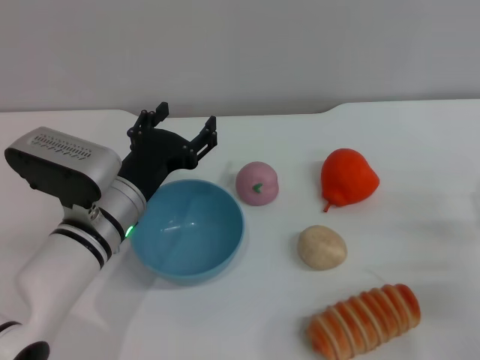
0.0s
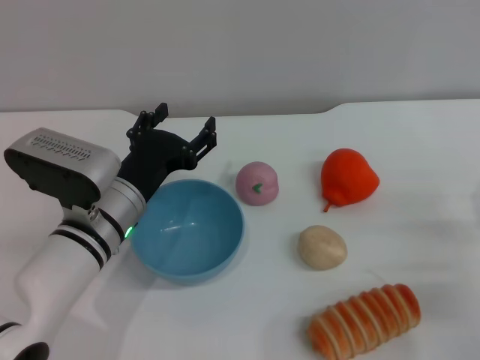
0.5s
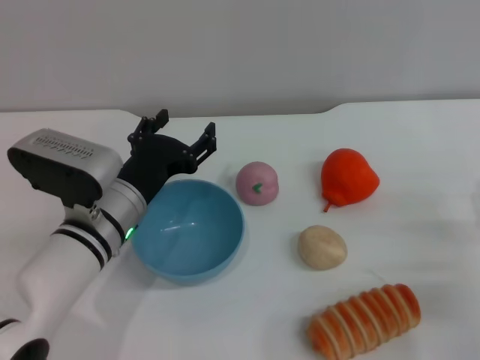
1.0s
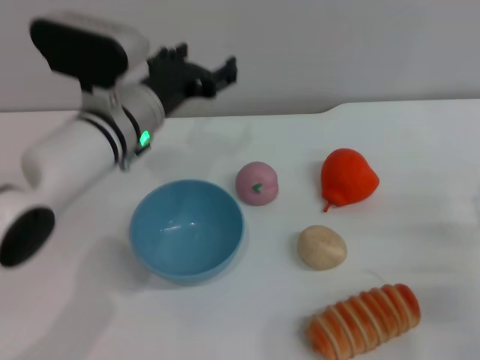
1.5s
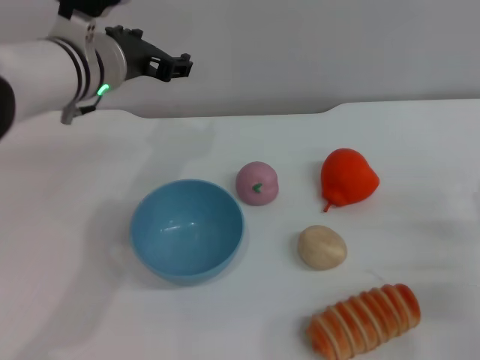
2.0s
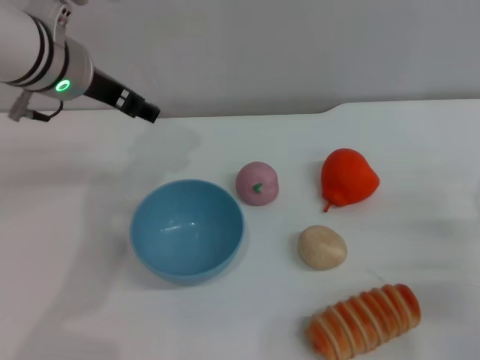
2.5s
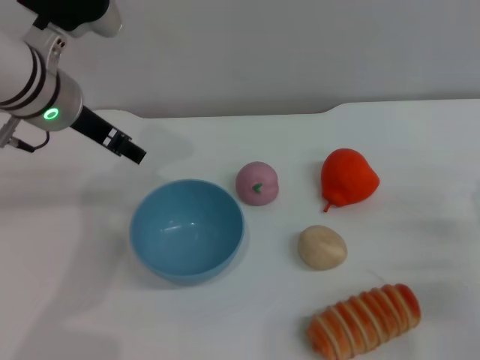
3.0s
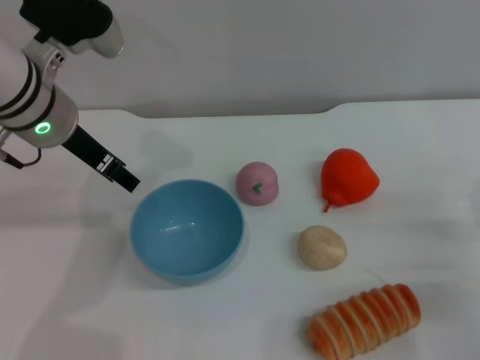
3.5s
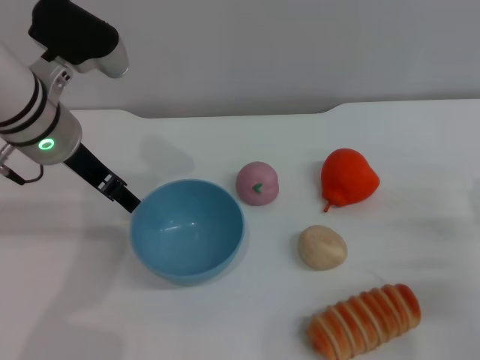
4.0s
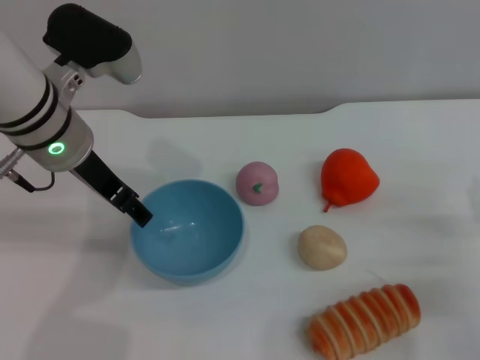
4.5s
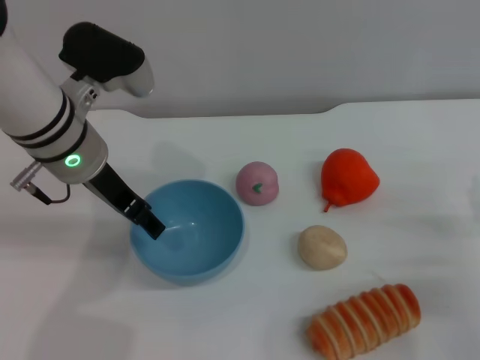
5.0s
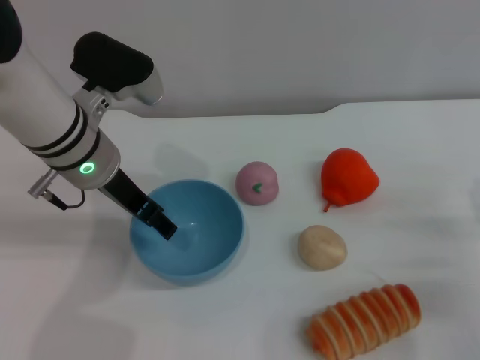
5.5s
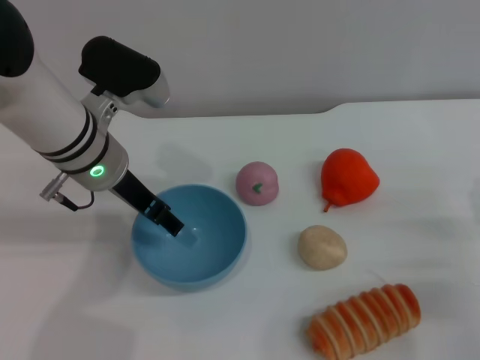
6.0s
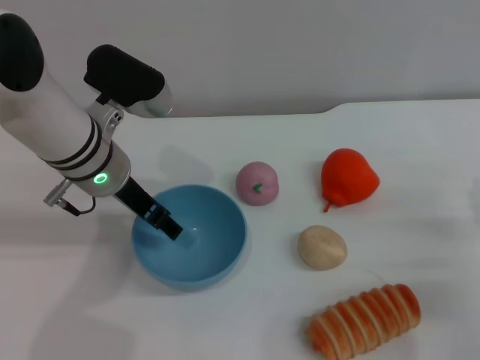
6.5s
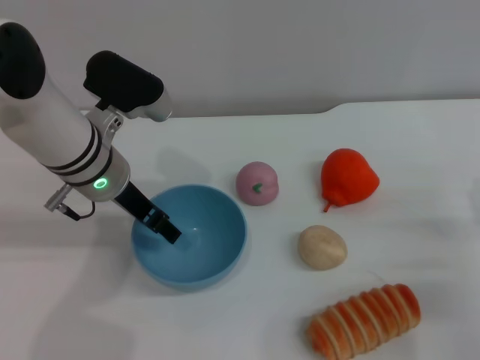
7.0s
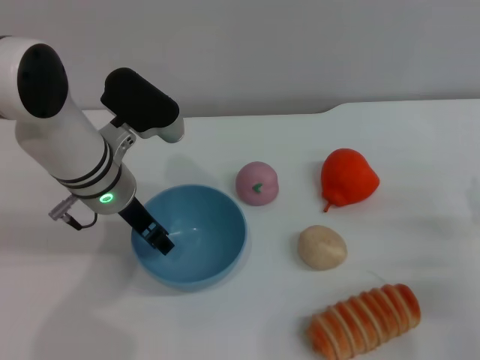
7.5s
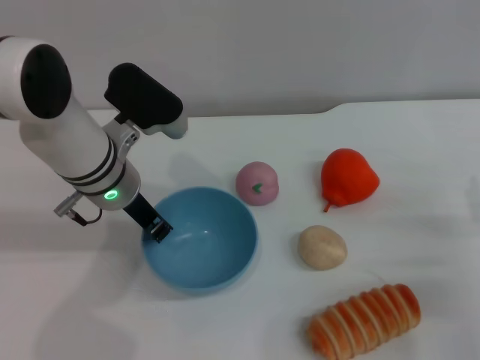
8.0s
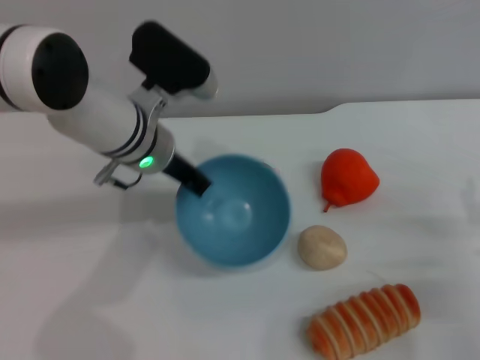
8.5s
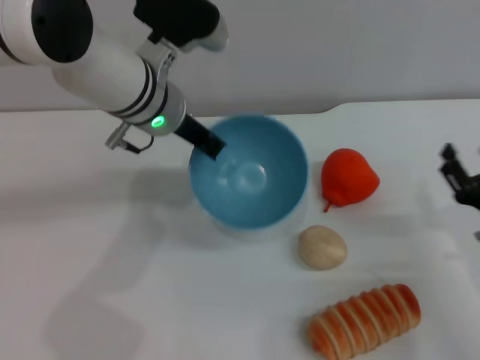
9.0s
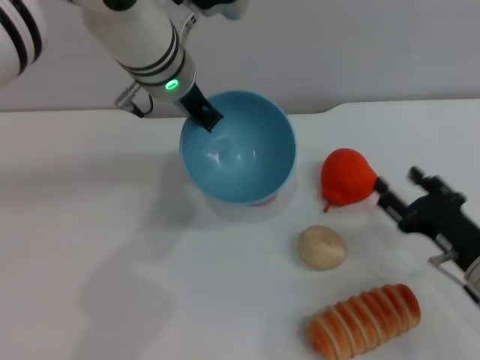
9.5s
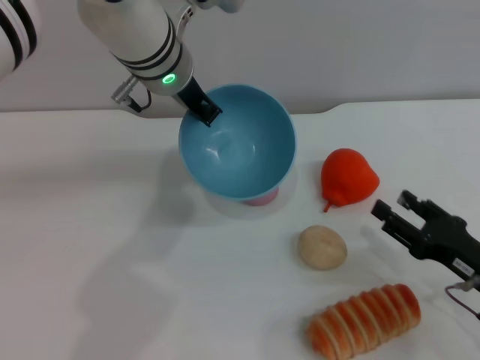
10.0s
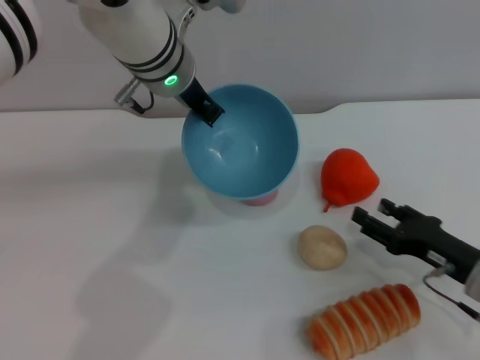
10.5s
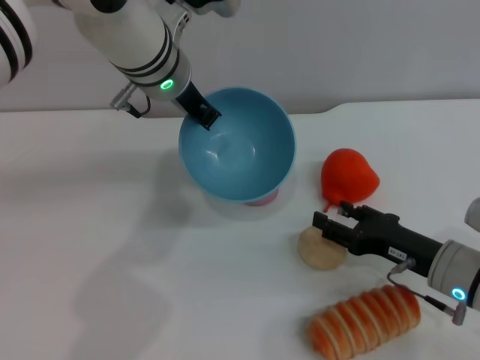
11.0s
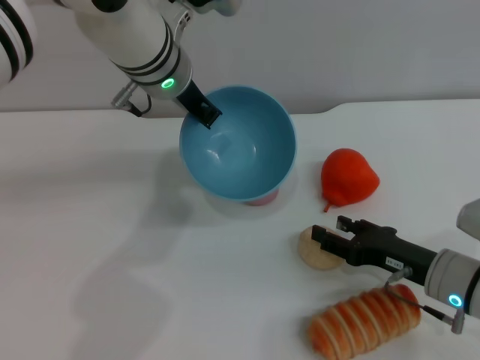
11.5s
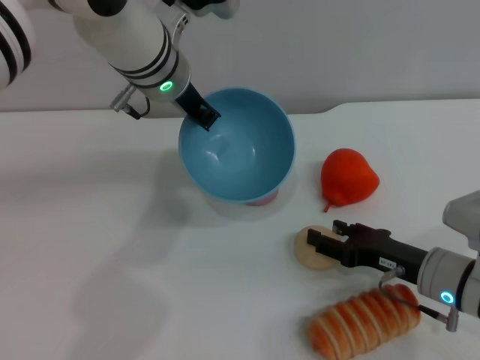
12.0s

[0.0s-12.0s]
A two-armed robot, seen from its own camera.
Task of the whole recording: put the egg yolk pastry into the blue bowl and pour it out repeatedly.
Step, 0.0s to 10.0s: Pick up the bowl with the left gripper.
0.0s to 2.0s: The left gripper heads upward and forward, covering approximately 15 cm.
4.0s to 6.0s: The grippers move only a little.
6.0s to 8.0s: The left gripper closes.
8.0s to 10.0s: The left gripper goes roughly 10 cm upward, to the right and forward.
10.0s to 12.0s: The right gripper shifts roughly 5 cm to the left and forward.

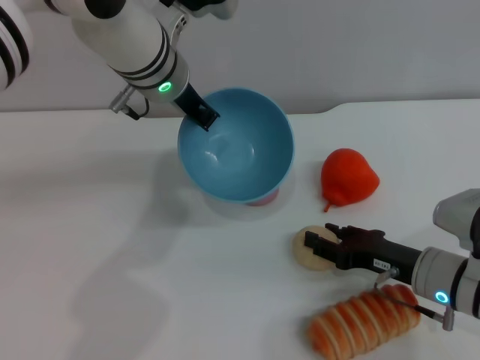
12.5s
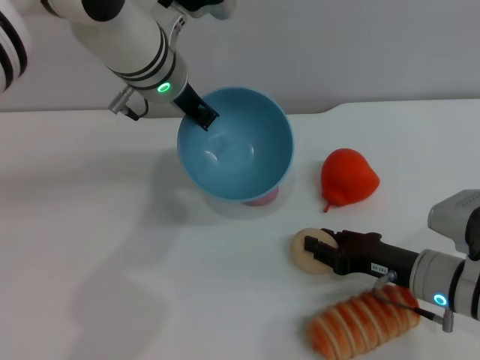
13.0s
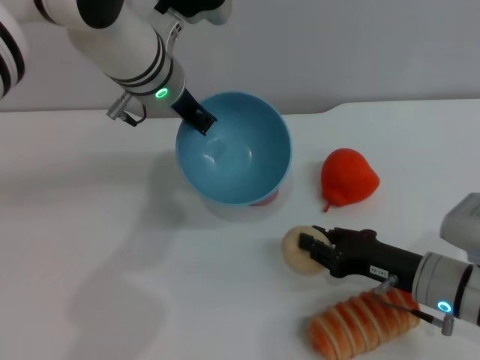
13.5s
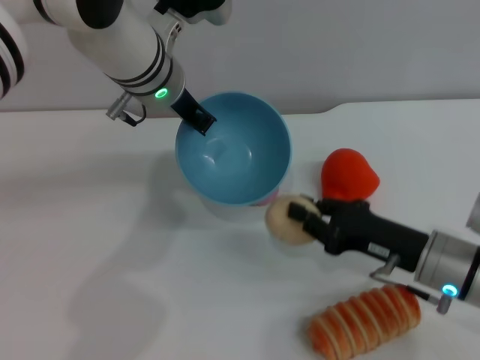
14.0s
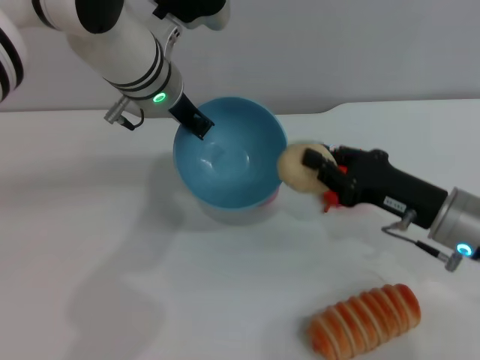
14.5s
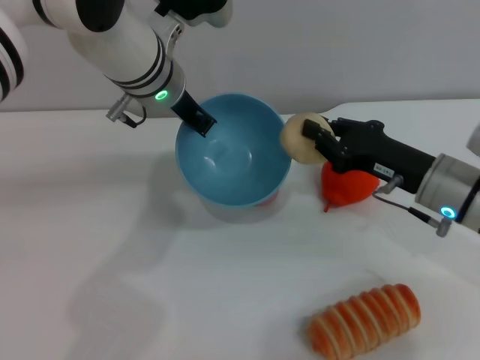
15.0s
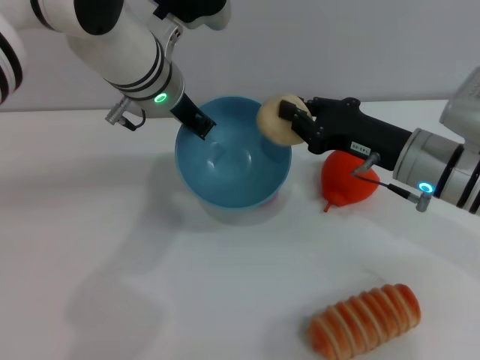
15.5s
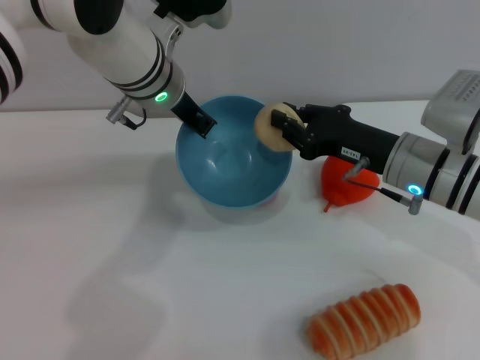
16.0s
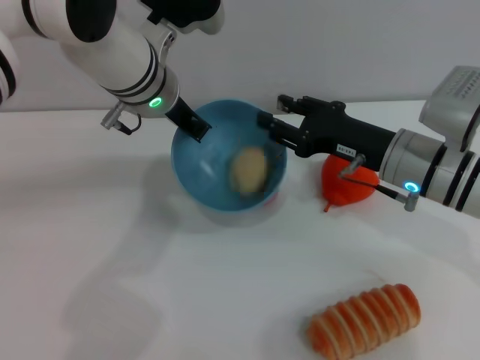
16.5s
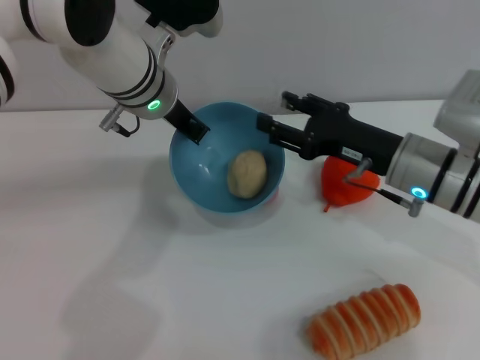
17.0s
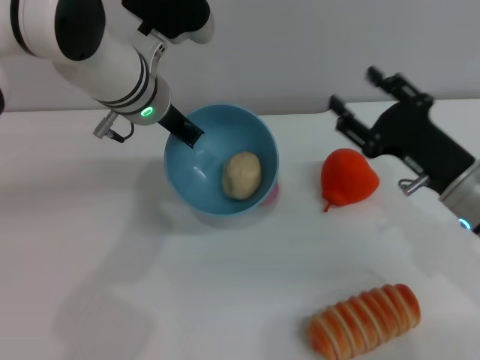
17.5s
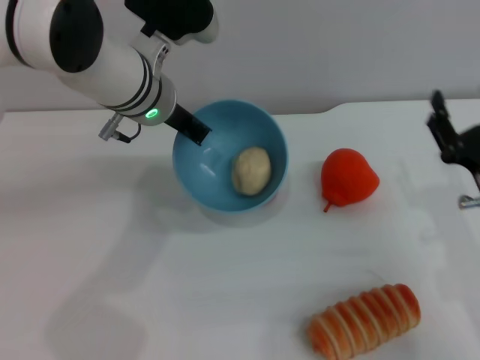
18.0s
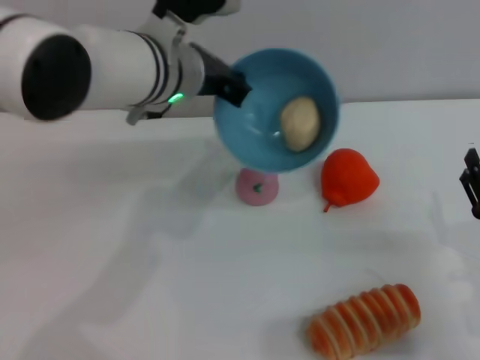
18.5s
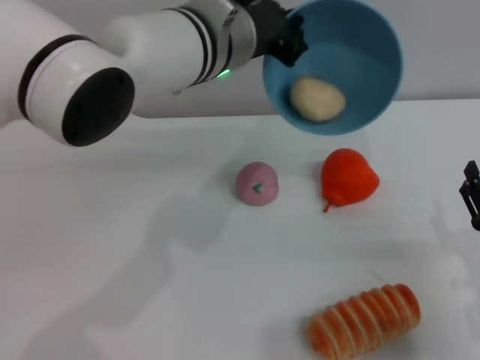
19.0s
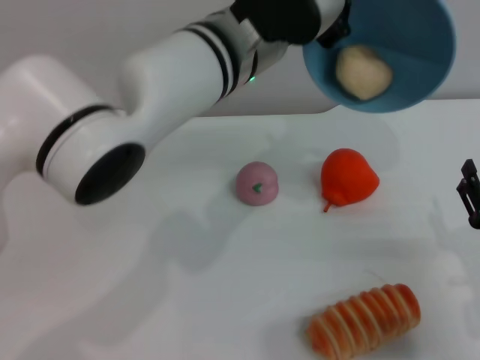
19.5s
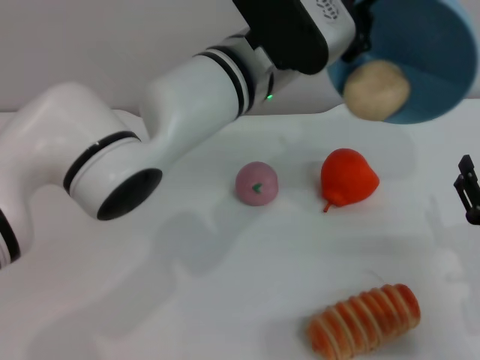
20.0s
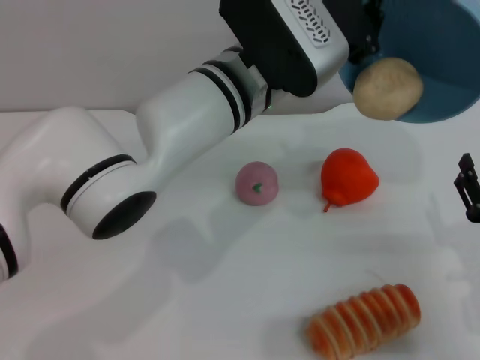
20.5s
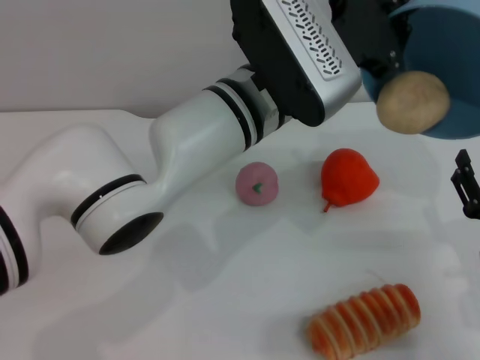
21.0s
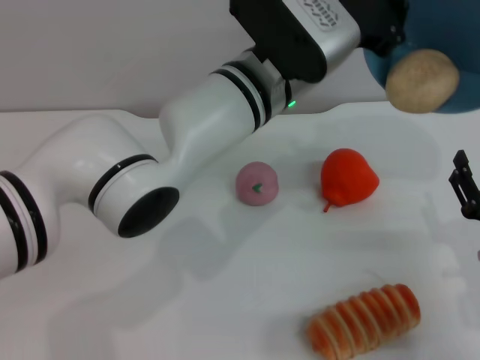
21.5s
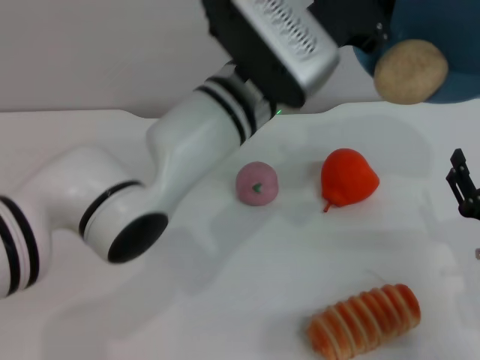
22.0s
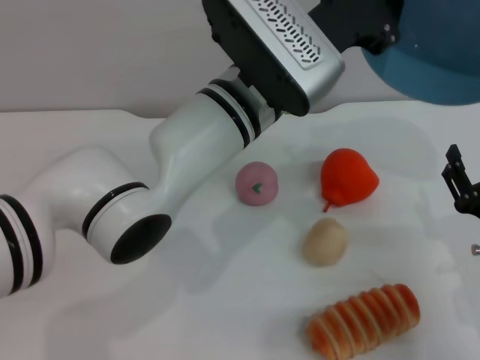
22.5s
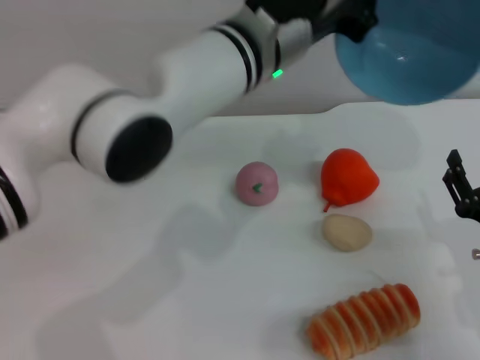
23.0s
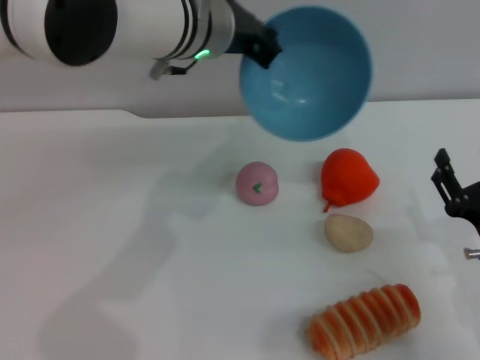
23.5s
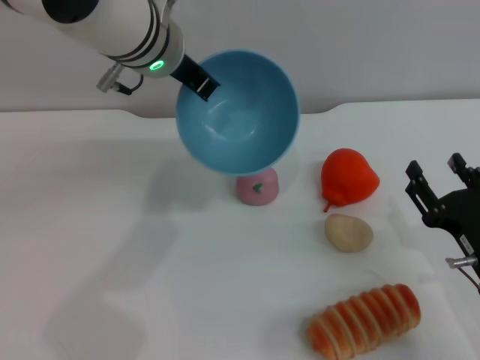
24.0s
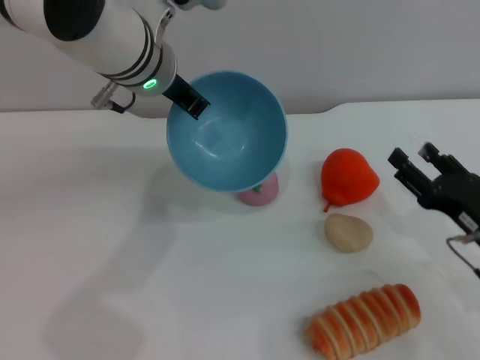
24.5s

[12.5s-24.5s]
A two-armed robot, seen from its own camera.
Task of the whole recording: put the egg yolk pastry into the blue bowl and pour it out repeatedly.
Step, 14.5s to 18.0s: Place the egg yolk pastry into the bowl.
Step, 18.5s to 22.5s: Pour the egg yolk pastry out of bowl.
12.5s to 14.5s: The right gripper goes about 5 cm upward, and closes up.
14.5s to 16.5s: The right gripper travels forward by some 5 cm, and opens its fingers.
16.5s to 18.5s: The right gripper moves backward, to the right and downward, some 20 cm, and opens its fingers.
18.5s to 20.5s: The left gripper heads to the right, covering about 5 cm.
20.5s to 22.5s: There are only small adjustments of the grippers.
22.5s to 24.5s: The left gripper moves to the left and forward, about 10 cm.

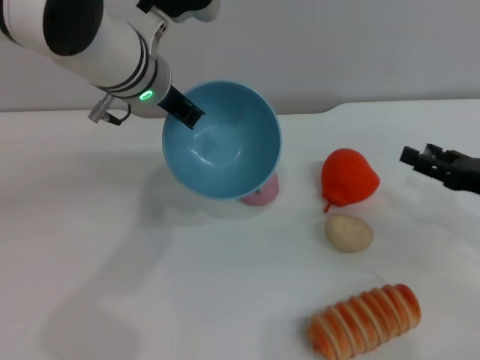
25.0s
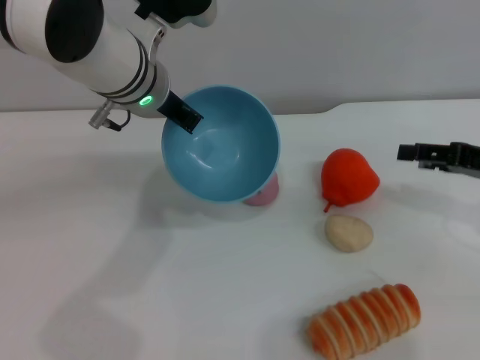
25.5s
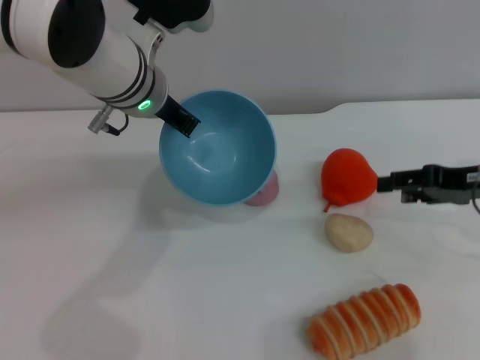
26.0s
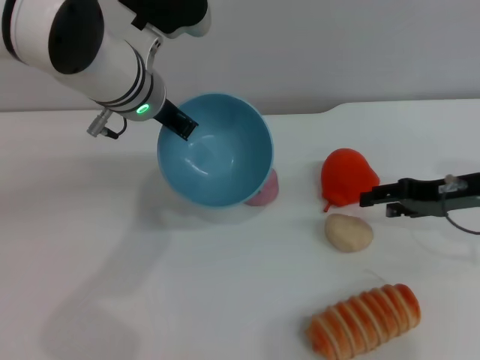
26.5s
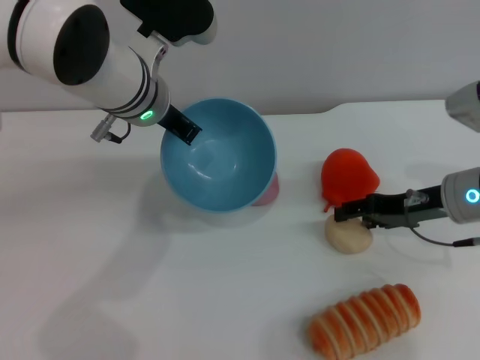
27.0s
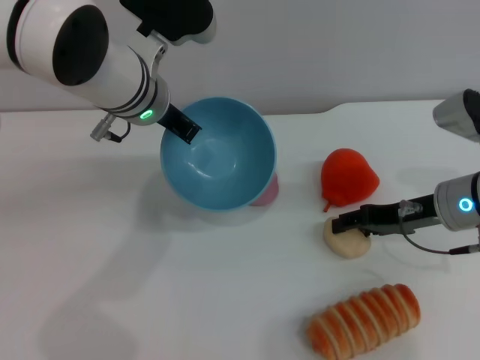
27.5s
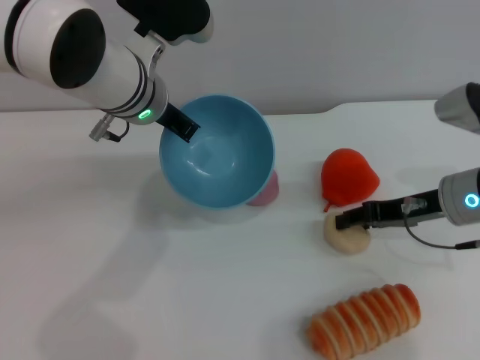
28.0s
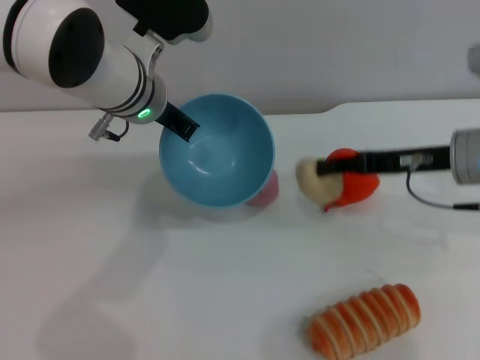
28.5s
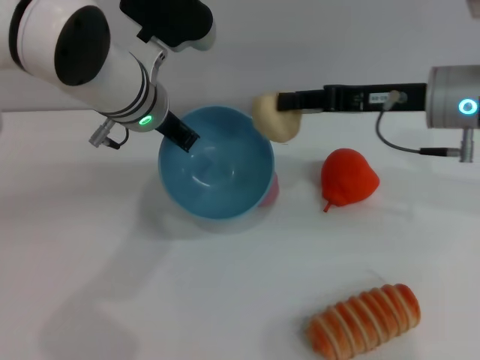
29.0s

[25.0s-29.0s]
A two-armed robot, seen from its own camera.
Task of the whole recording: put the egg yolk pastry into the blue bowl and pour it out repeatedly.
Step, 25.0s to 28.5s: Pick up the egg yolk pastry with the right gripper.
25.0s to 27.0s: The right gripper goes approximately 10 cm to the left and forward.
27.0s to 29.0s: The right gripper is displaced upward by approximately 10 cm, and closes up.
